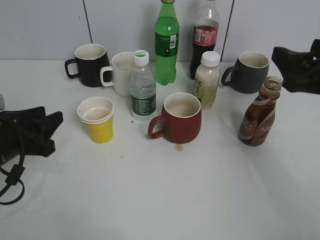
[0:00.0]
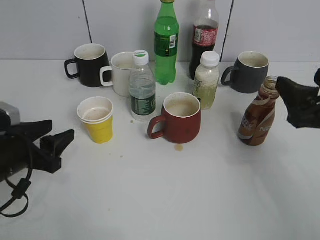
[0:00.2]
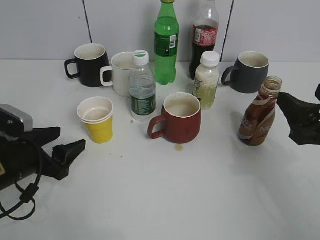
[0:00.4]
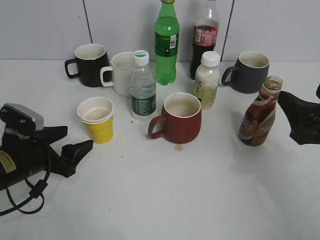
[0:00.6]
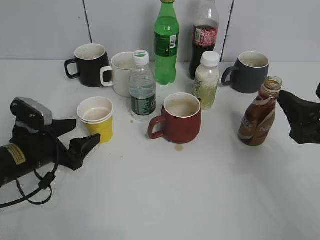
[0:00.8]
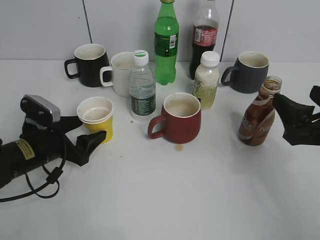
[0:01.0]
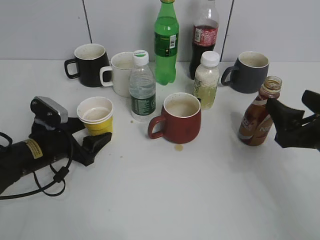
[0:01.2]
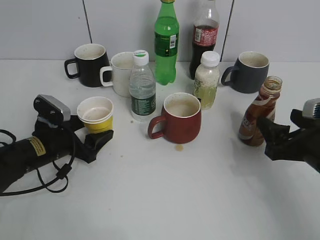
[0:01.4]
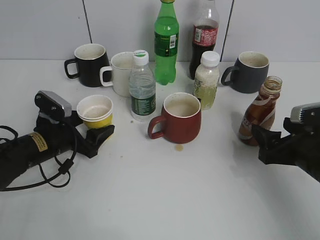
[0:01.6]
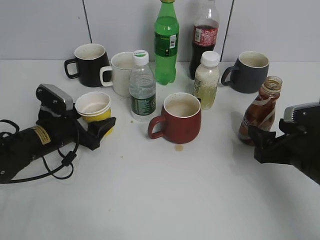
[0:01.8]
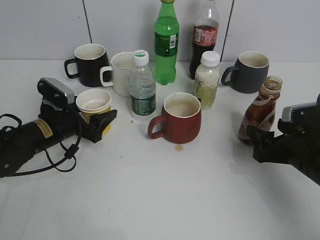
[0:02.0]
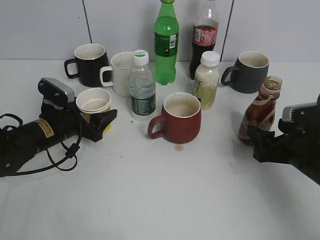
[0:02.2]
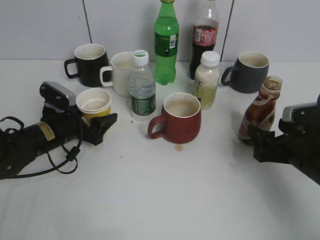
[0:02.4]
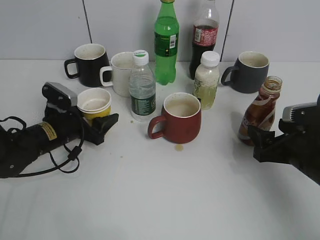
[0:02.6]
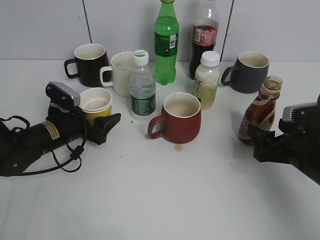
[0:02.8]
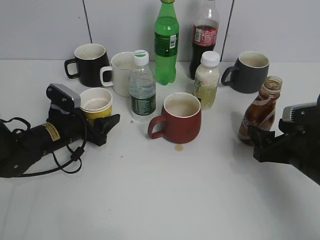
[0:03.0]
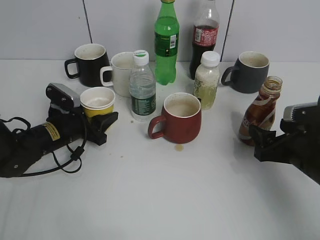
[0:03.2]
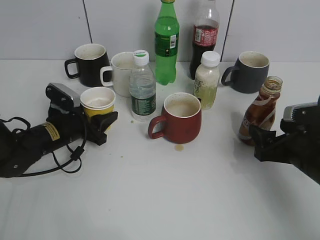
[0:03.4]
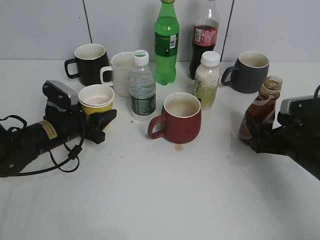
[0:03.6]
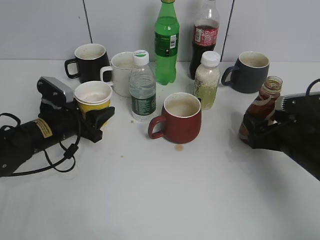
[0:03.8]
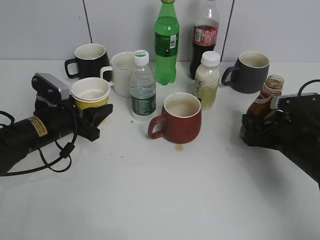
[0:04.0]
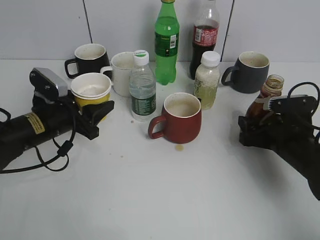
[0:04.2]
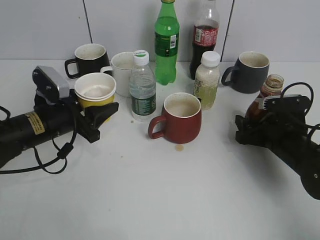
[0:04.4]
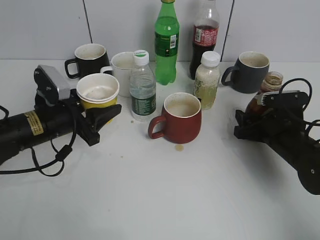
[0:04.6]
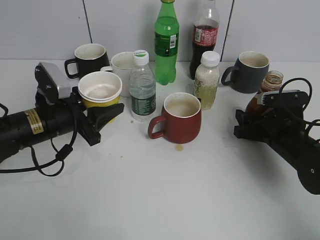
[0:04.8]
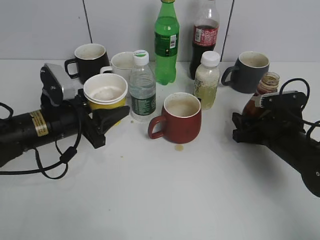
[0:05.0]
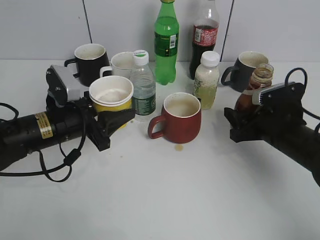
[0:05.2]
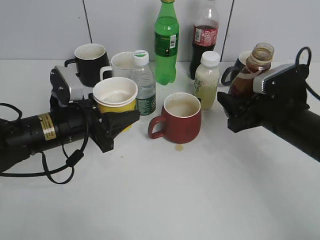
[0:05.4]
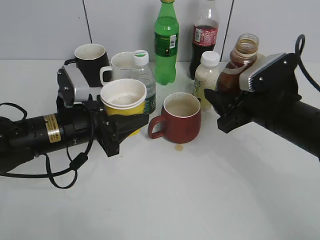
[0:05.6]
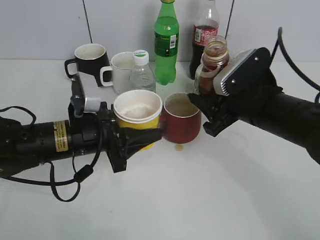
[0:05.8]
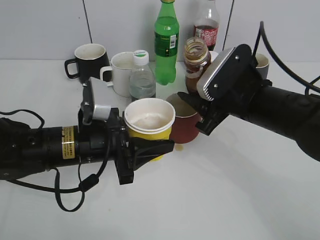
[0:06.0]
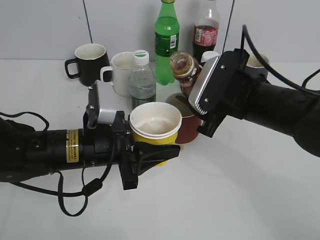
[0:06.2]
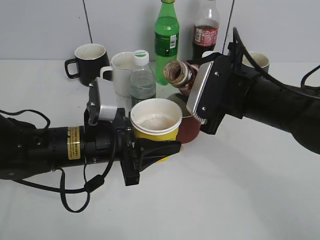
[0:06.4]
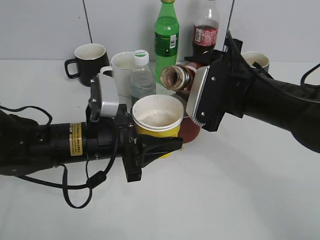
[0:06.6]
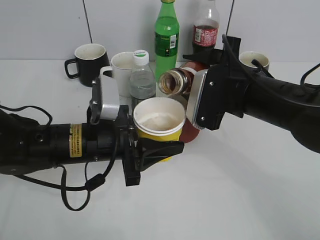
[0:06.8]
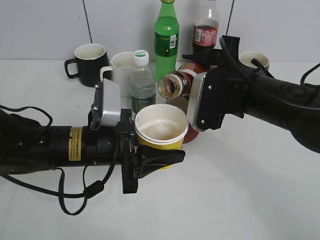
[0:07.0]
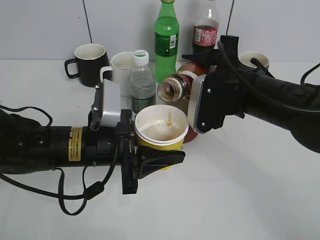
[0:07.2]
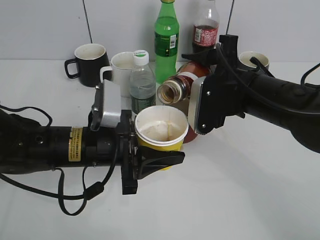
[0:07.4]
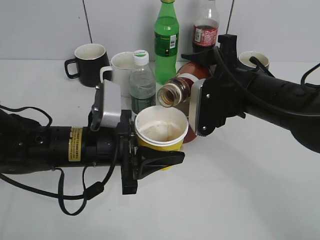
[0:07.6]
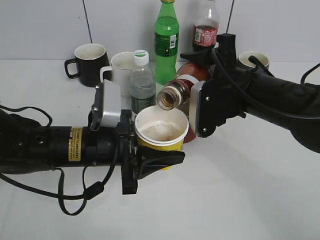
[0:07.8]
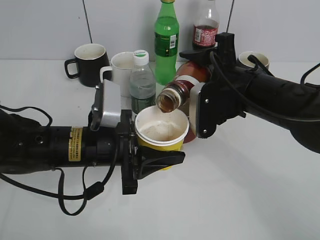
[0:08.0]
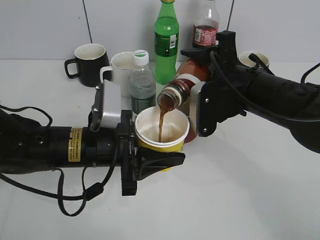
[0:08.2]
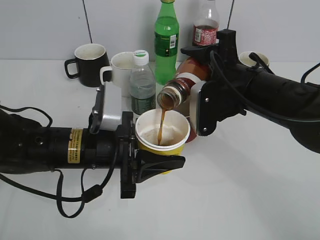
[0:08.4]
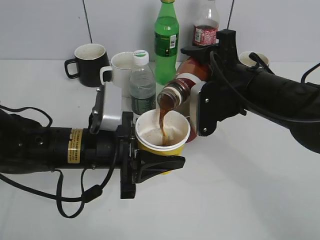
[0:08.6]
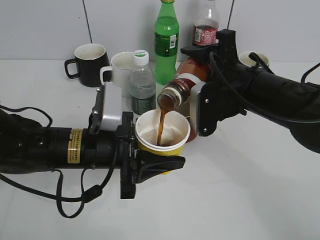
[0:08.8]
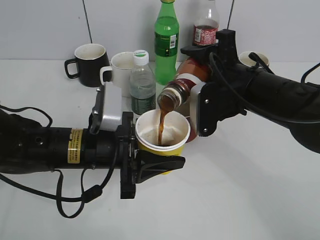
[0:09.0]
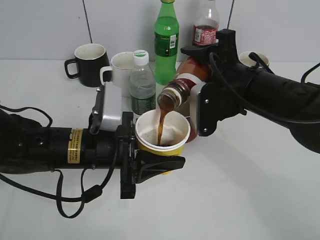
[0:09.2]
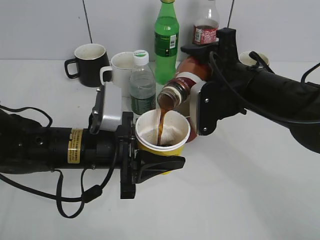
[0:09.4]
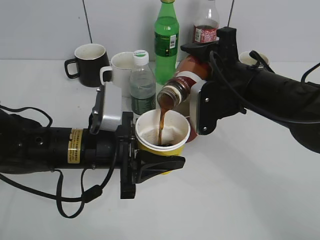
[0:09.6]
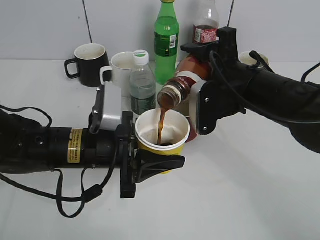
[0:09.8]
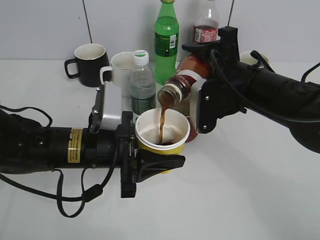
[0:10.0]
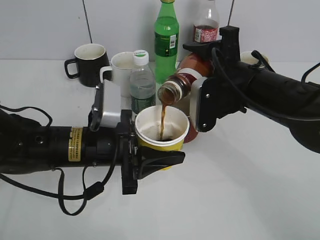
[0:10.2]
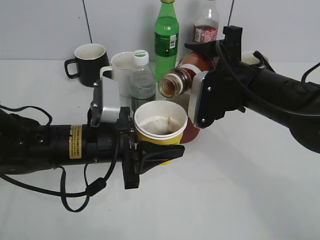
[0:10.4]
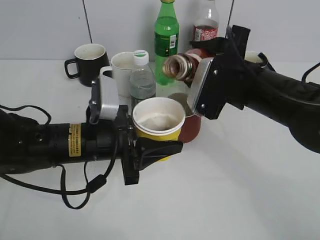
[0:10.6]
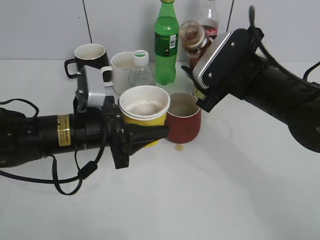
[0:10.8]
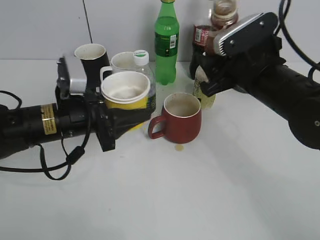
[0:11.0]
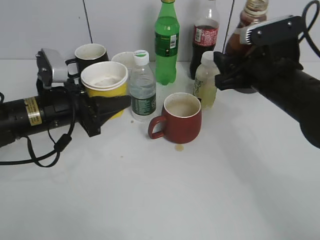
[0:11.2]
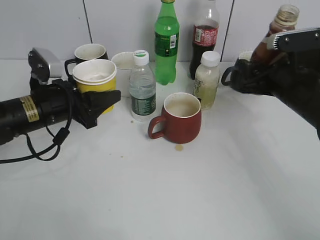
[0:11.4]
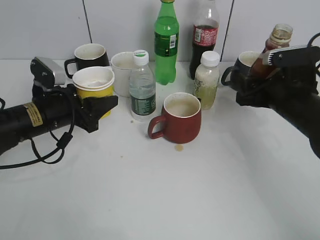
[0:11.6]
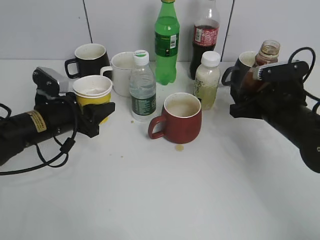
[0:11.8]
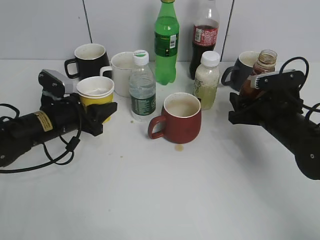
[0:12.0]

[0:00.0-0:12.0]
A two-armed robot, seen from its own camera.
Step, 0:00.0 to 0:03.2: Grasp the yellow paper cup with left gripper.
Step, 0:03.6 to 0:04.6: Grasp the bottle with coffee with right gripper.
Step, 0:04.8 to 0:10.8: Pour the coffee from bottle to cup with right gripper.
0:00.0 to 0:01.6: The right gripper shifts approximately 10 cm downward. The left gripper is displaced downward and forward by some 10 cm, and opens.
0:01.6 to 0:03.0: There are only small adjustments of the grippers.
0:03.0 to 0:04.4: The right gripper travels forward by about 5 cm. The left gripper travels upward by roughly 5 cm, and closes up.
0:04.4 to 0:06.0: The right gripper travels upward and to the left by roughly 15 cm, and closes its fingers. The left gripper heads to the right and backward, covering some 10 cm.
0:07.6 to 0:10.4: The grippers stay close to where they were, moving slightly.
0:10.4 to 0:12.0: The left gripper goes some 15 cm to the left and forward; the right gripper is displaced downward and to the right by about 15 cm.

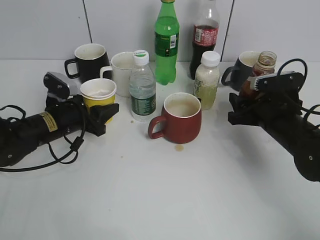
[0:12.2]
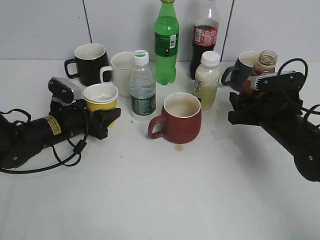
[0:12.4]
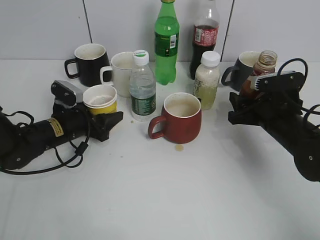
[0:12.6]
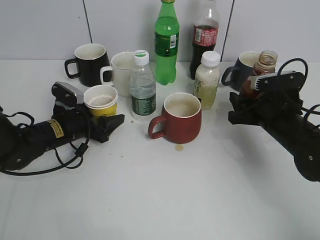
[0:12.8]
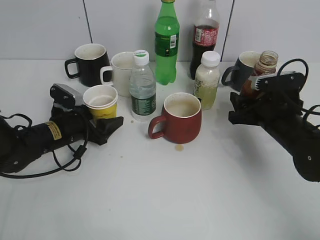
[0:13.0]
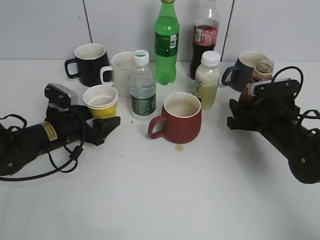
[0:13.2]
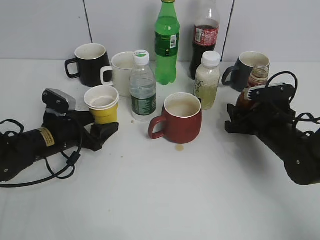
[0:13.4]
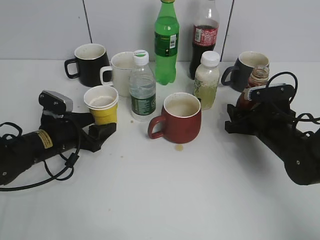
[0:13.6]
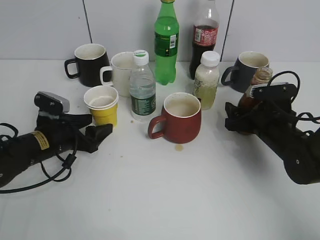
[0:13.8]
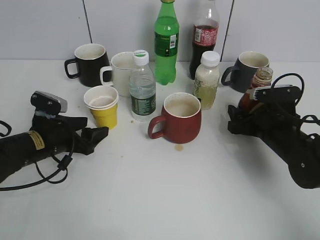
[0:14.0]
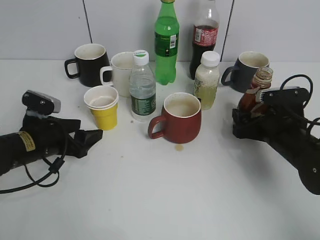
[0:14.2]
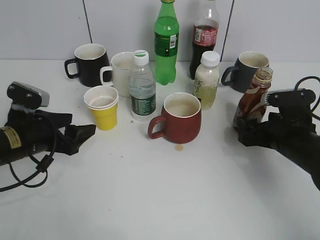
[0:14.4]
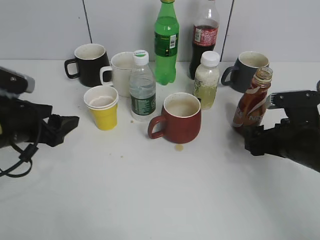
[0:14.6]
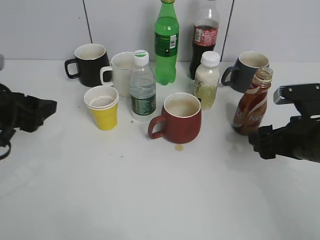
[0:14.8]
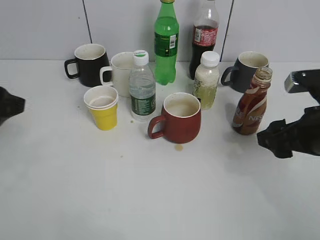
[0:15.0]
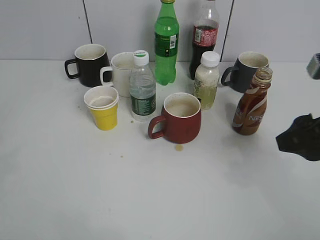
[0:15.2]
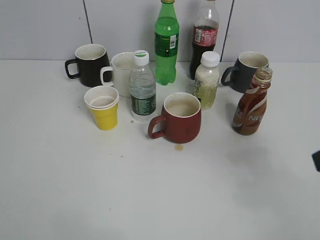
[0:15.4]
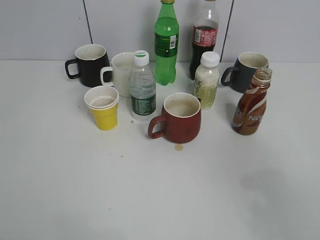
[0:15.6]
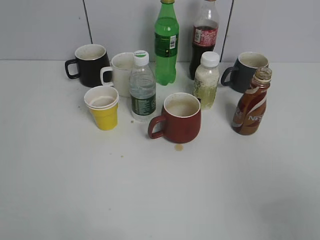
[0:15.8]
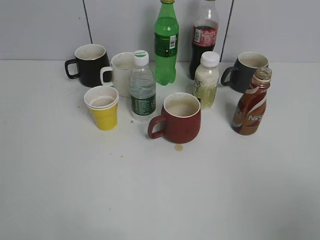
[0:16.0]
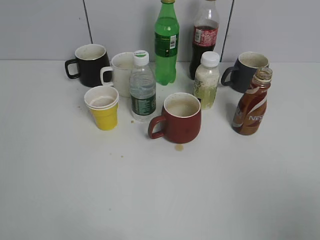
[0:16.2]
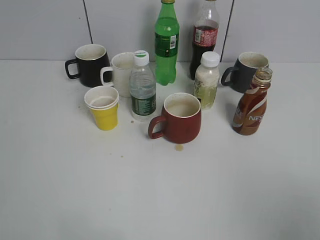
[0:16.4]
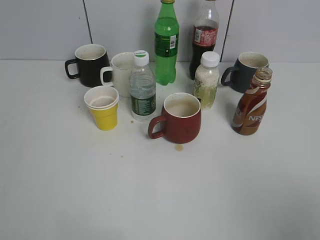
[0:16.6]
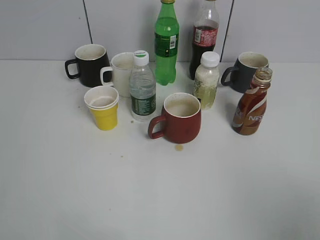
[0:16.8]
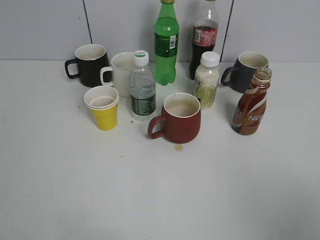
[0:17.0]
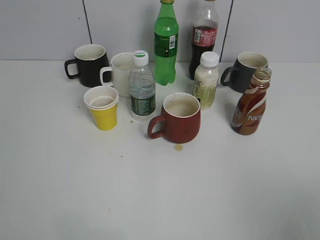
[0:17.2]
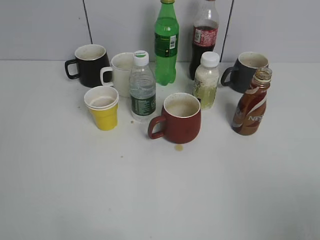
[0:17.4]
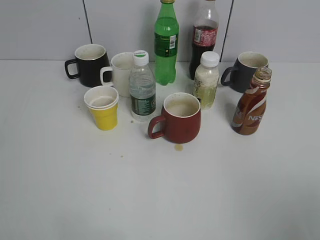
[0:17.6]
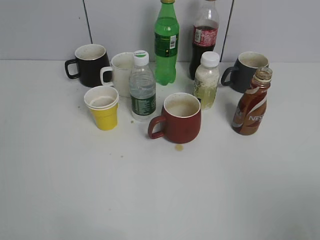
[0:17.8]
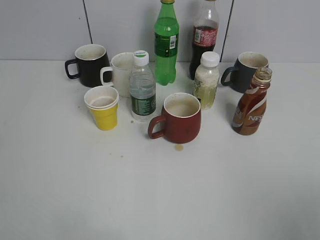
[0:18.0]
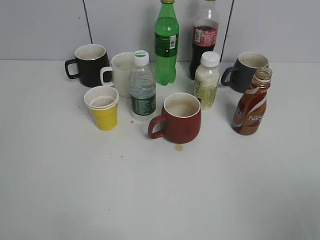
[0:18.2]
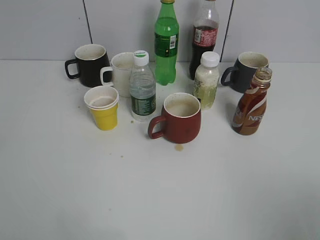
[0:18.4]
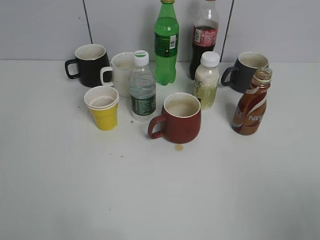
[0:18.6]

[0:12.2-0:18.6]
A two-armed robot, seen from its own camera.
Step, 0:12.2 to 0:14.2: Place the coffee bottle on the table with right gripper.
0:12.2 to 0:13.8: The left gripper opens its fingers, while the right gripper opens up.
0:13.8 to 0:15.4: Both grippers move upward and backward, approximately 30 cm.
0:15.4 to 0:17.0: The right gripper goes some 15 cm backward.

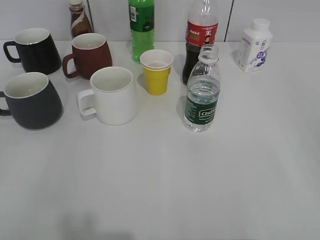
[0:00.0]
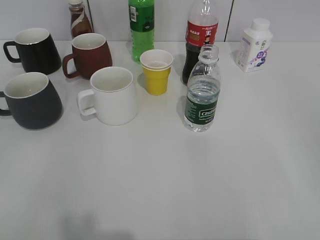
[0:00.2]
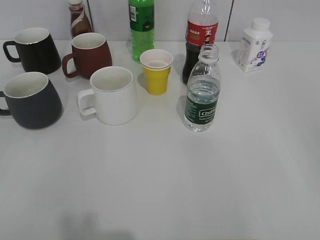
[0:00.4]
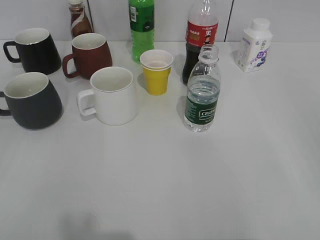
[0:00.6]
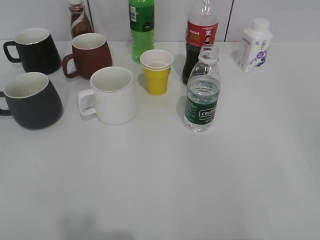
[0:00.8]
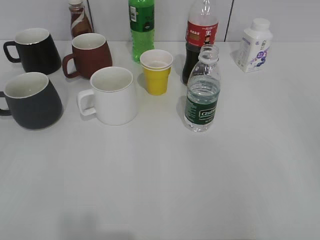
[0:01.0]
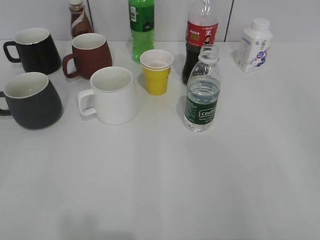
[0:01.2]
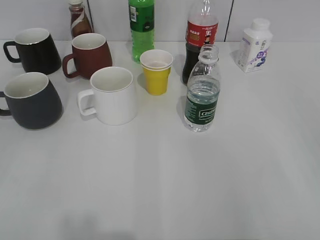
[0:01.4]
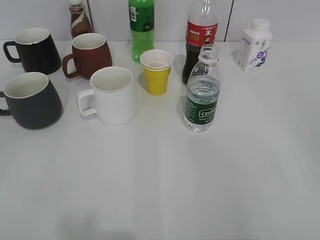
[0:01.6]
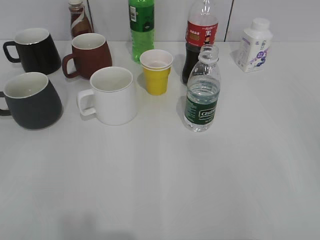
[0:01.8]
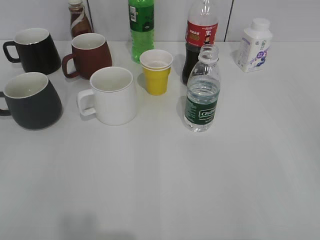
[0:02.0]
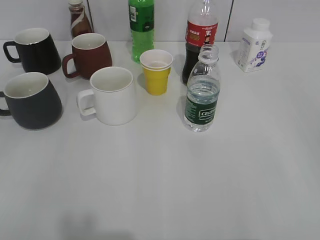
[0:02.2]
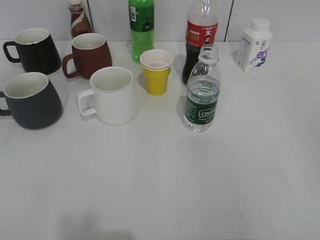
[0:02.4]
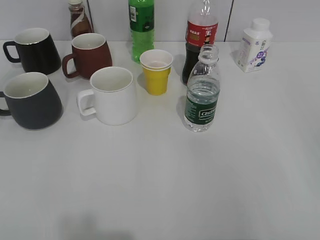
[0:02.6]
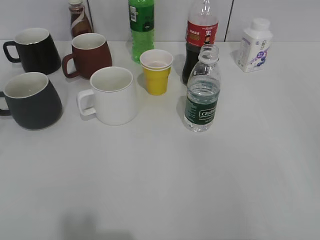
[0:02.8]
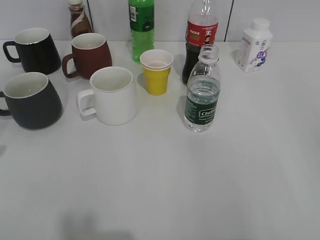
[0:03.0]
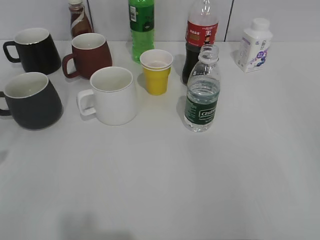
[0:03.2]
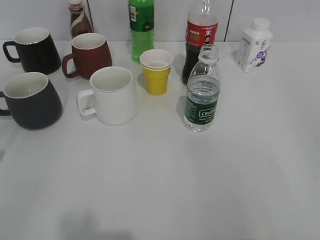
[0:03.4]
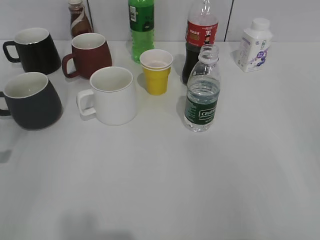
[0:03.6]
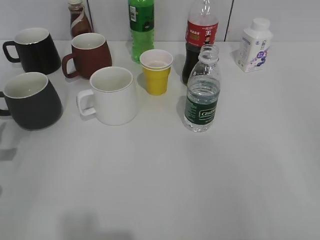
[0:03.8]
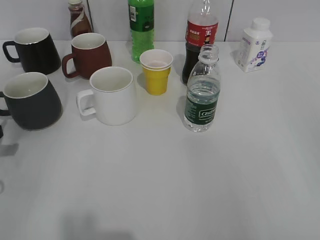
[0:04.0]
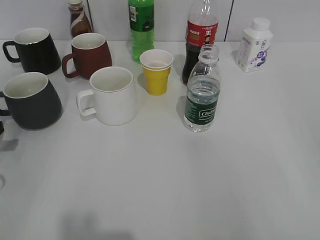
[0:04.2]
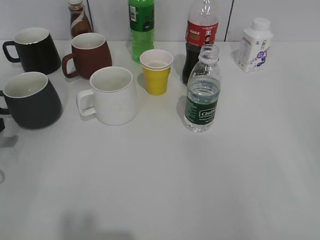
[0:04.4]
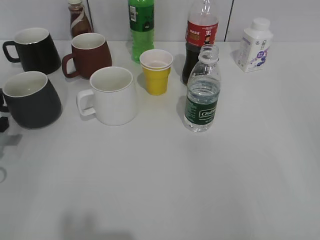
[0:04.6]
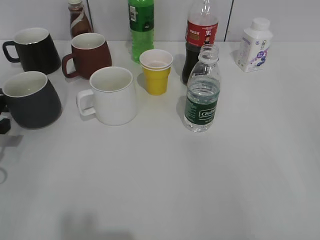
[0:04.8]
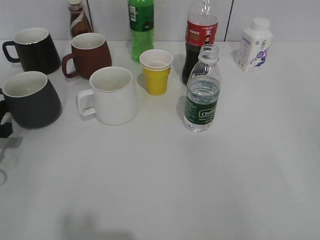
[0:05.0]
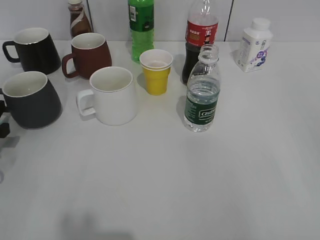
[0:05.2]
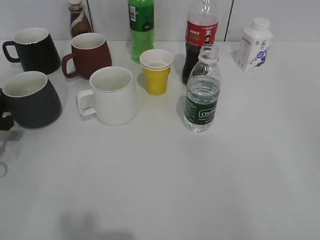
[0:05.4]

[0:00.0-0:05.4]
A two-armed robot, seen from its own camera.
0:01.4 to 0:02.8: The left gripper is displaced forward by approximately 10 cm.
0:02.8 to 0:04.0: The left gripper is displaced downward and forward by roughly 20 cm.
0:04.0 to 0:05.4: The grippers make only small movements.
